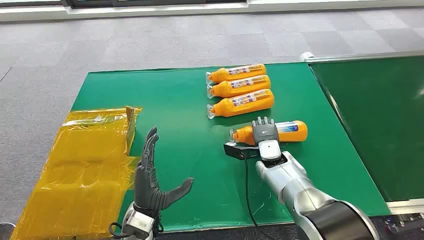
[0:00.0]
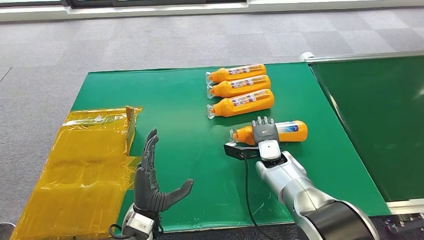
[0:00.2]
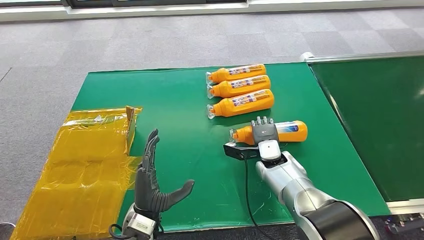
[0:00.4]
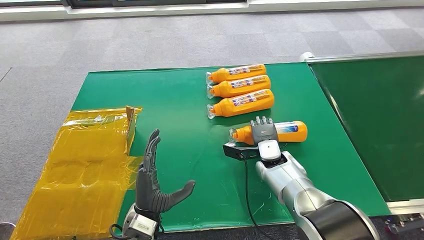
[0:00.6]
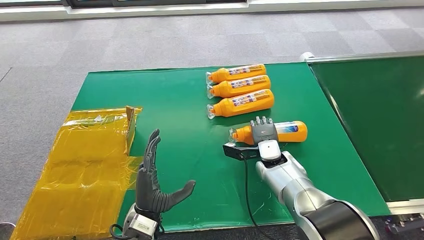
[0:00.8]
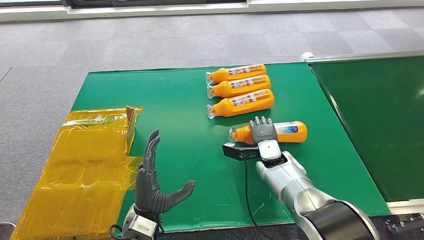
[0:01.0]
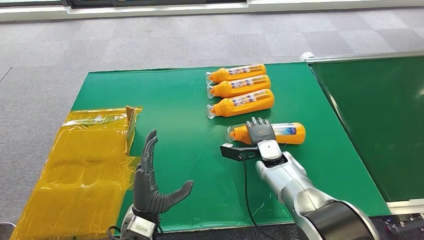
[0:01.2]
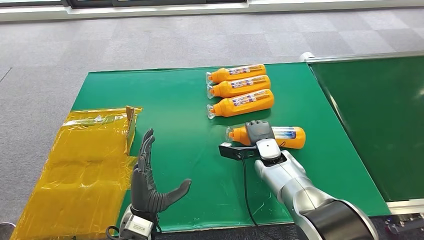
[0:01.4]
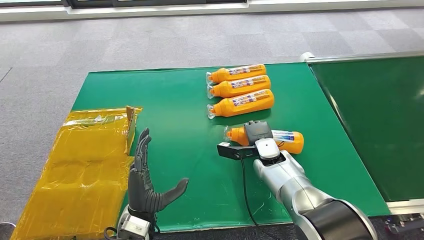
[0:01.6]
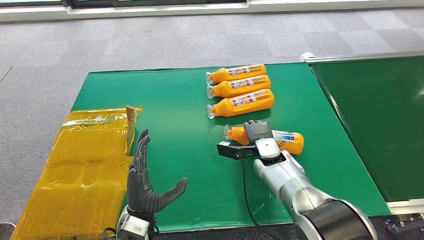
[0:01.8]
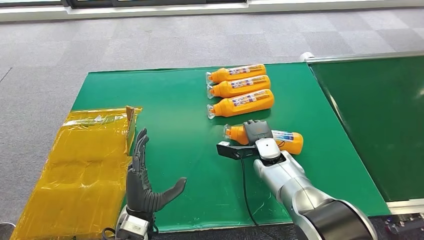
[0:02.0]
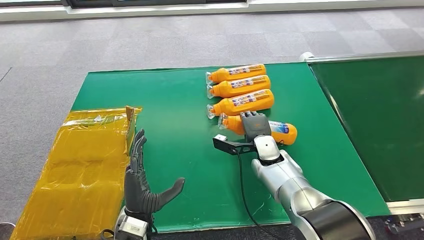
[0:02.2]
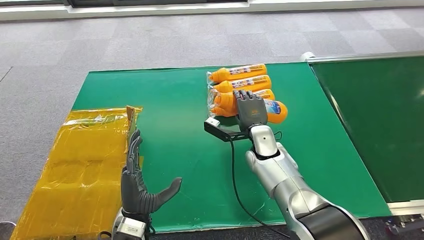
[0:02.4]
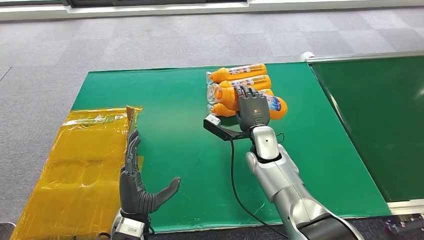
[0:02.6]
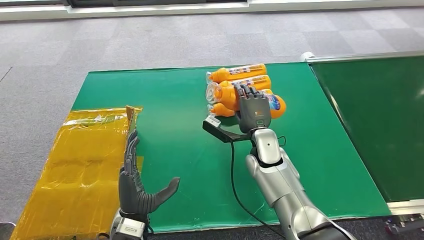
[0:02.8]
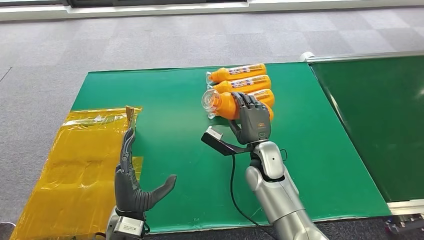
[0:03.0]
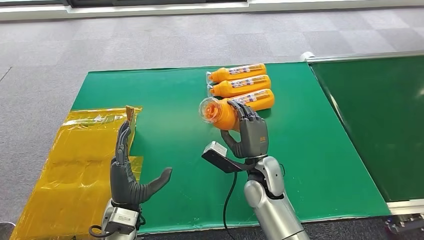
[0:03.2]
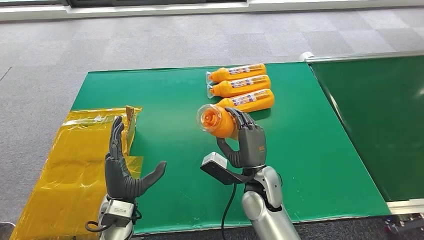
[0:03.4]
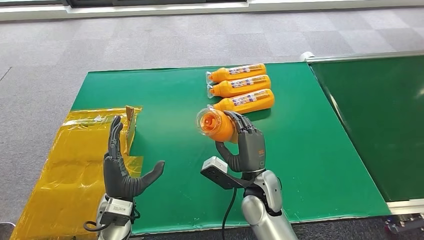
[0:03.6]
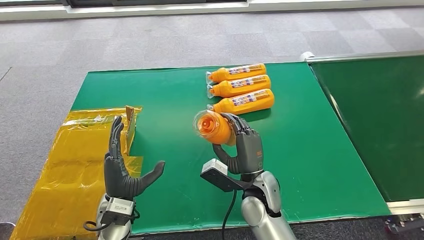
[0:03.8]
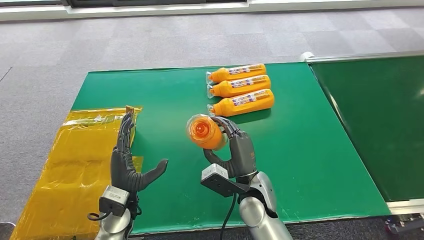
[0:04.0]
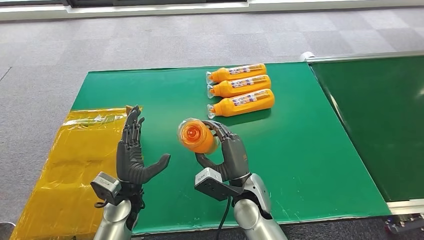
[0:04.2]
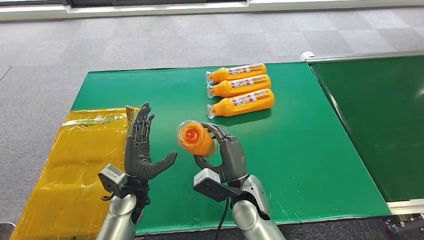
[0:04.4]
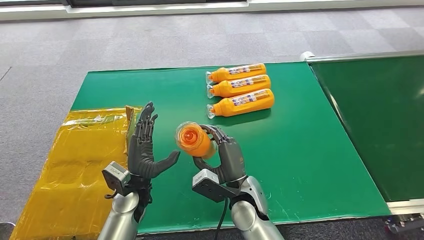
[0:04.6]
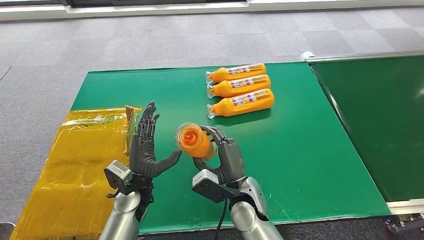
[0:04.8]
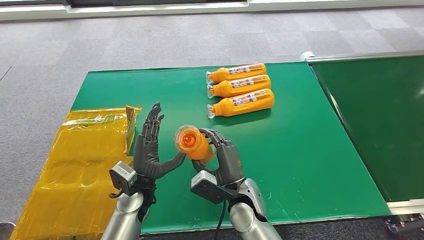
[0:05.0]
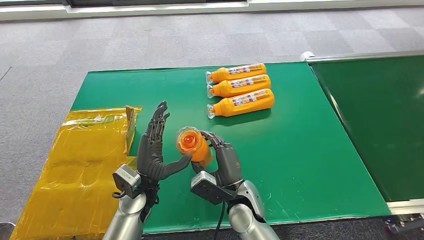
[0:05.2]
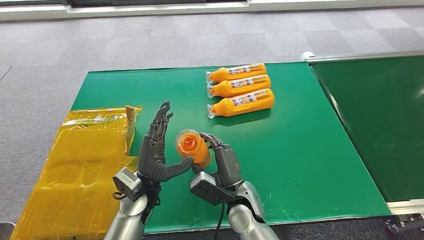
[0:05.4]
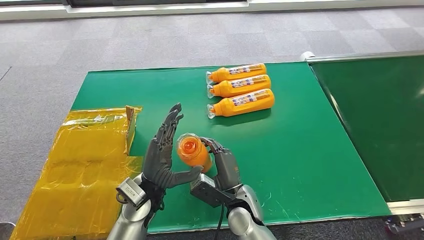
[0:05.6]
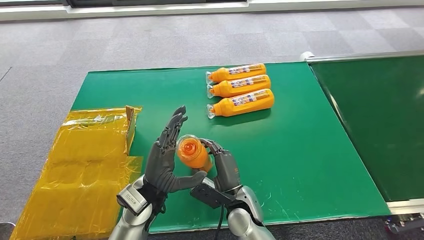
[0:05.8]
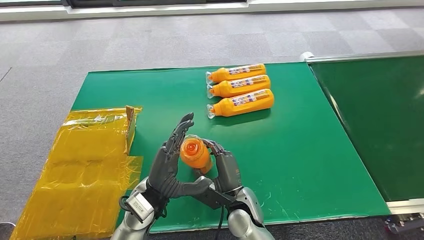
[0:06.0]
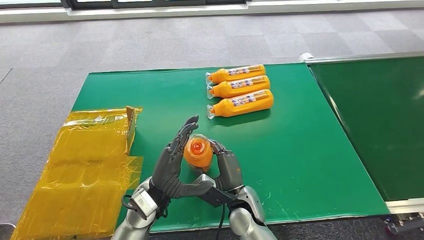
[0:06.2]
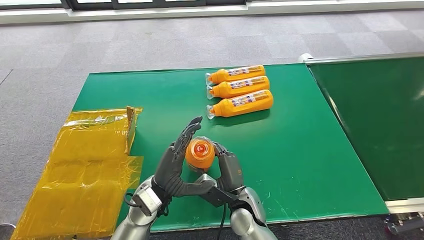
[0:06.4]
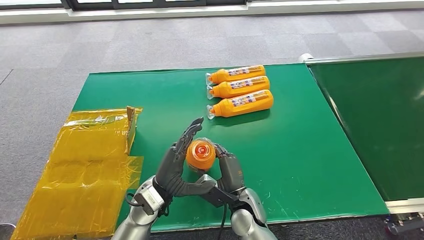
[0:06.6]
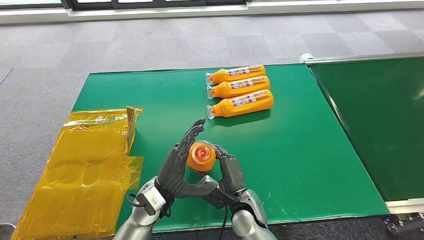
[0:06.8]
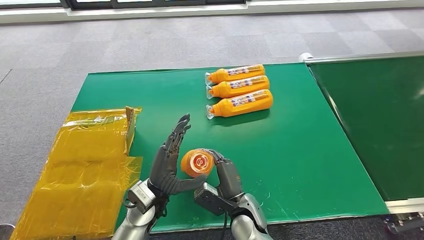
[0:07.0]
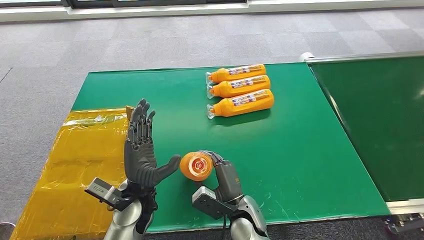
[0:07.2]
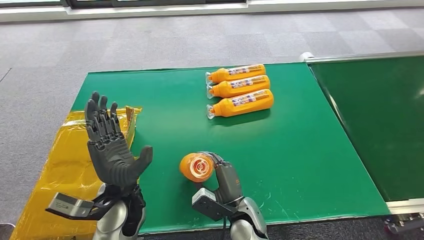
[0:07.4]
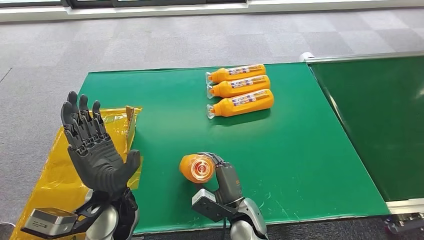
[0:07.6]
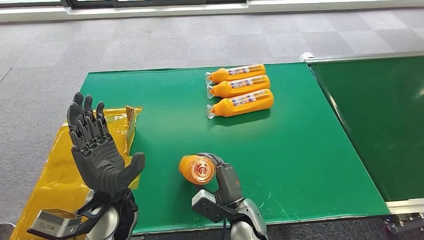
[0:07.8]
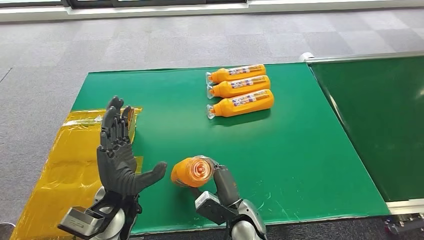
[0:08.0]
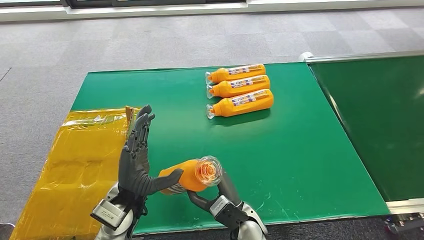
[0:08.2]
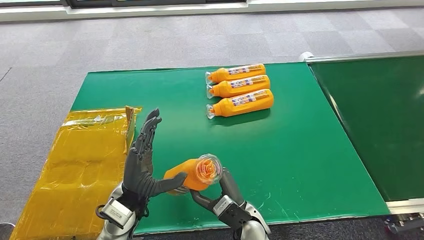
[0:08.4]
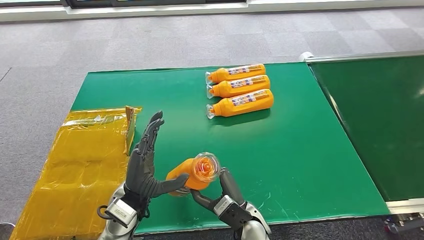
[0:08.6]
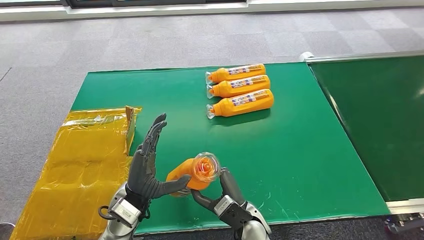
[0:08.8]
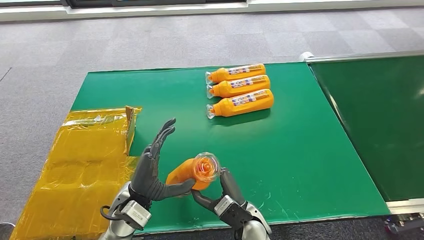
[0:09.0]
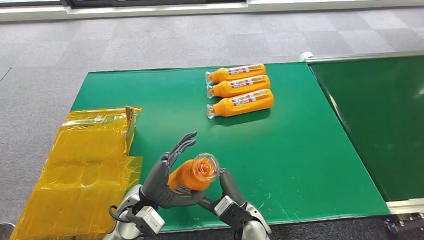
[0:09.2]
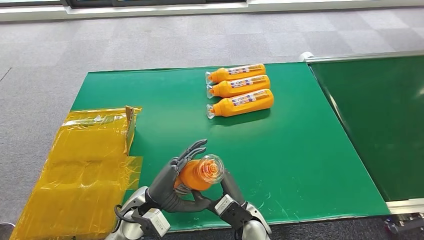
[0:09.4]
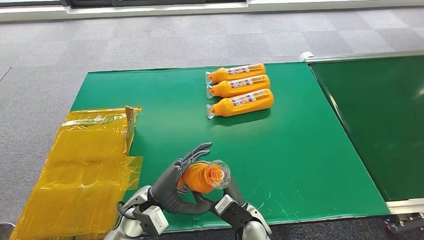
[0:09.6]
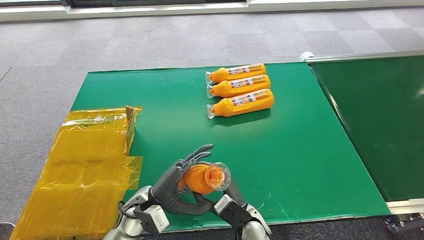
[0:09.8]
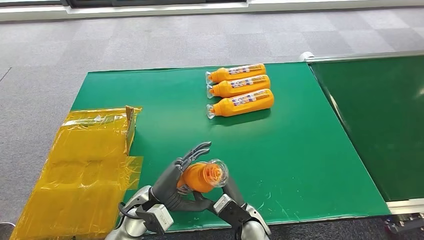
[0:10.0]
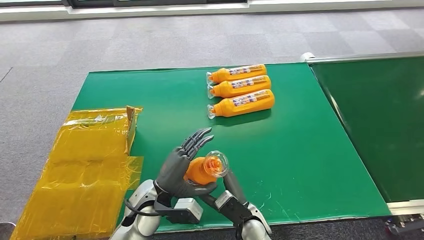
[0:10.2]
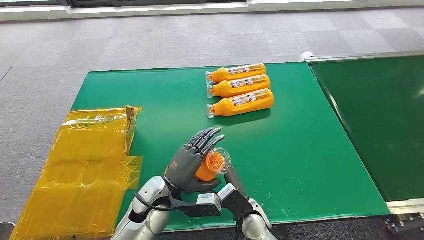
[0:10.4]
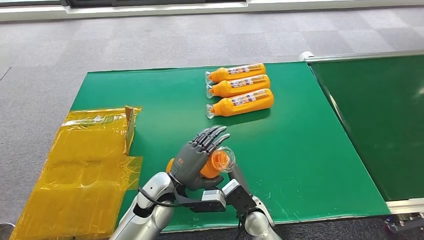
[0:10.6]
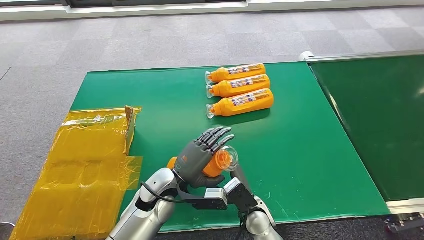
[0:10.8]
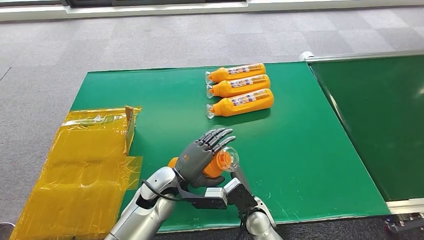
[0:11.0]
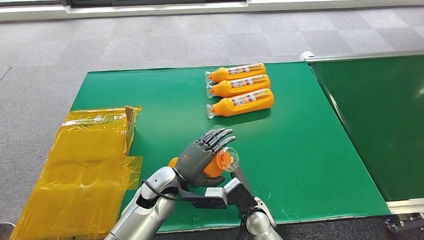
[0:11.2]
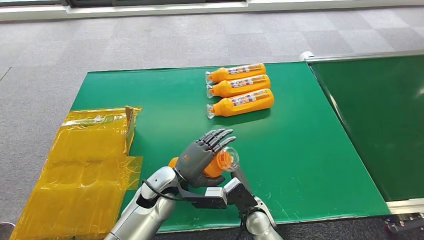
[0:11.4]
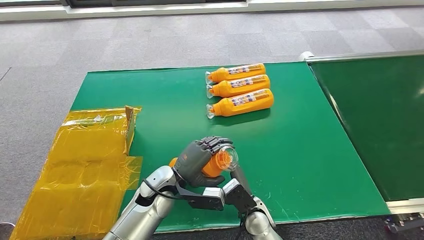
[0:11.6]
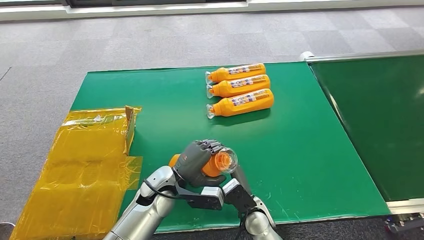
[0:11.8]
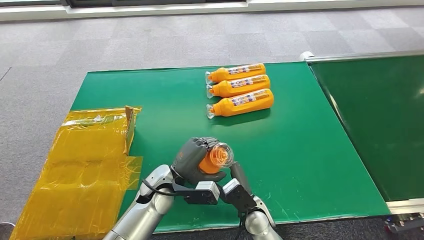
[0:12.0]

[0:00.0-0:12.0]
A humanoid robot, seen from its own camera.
Step, 0:00.0 to 0:03.0: Pick up the bottle from the table.
0:01.6 to 0:03.0: The right hand heads upward, covering roughly 5 cm.
0:03.0 to 0:04.4: The right hand travels backward and to the left by some 10 cm. Meanwhile the left hand heads forward, covering about 5 cm.
0:04.4 to 0:06.0: The right hand ends up approximately 5 cm from where it was; the left hand goes some 5 cm to the right.
0:06.0 to 0:07.6: The left hand ends up some 5 cm from where it was.
0:07.6 to 0:09.0: The left hand travels downward by approximately 5 cm.
0:10.4 to 0:12.0: The hands move only a little.

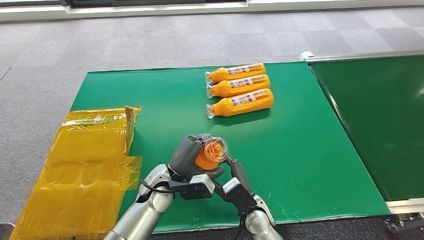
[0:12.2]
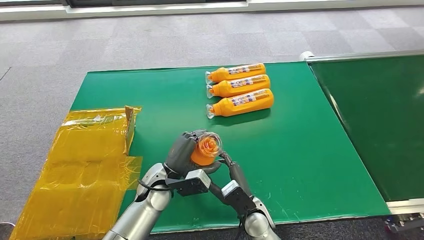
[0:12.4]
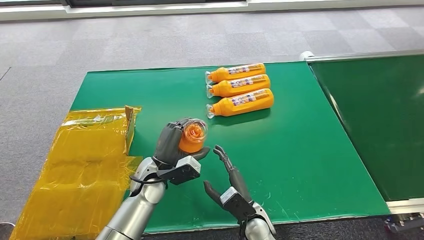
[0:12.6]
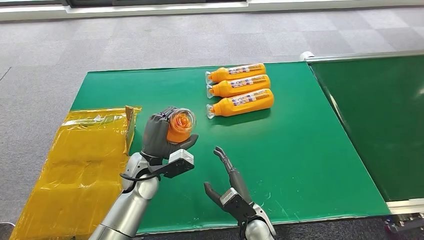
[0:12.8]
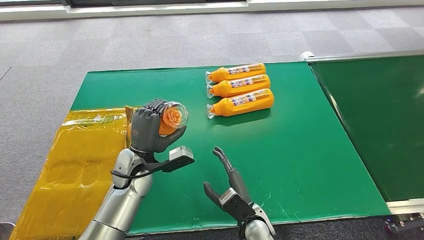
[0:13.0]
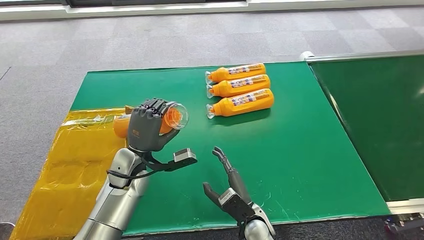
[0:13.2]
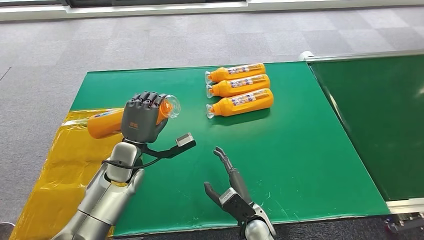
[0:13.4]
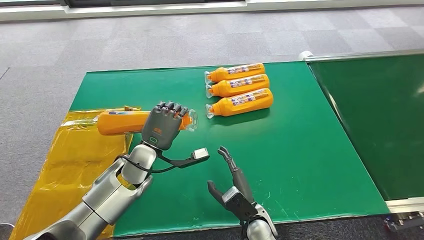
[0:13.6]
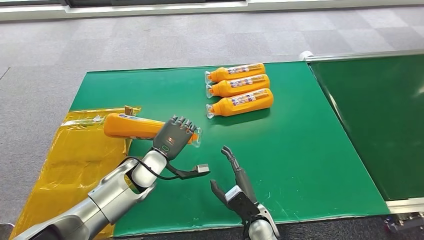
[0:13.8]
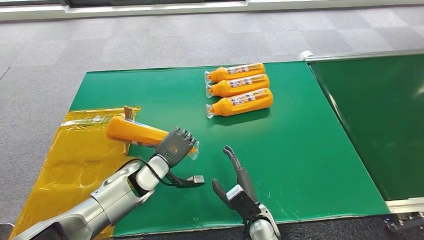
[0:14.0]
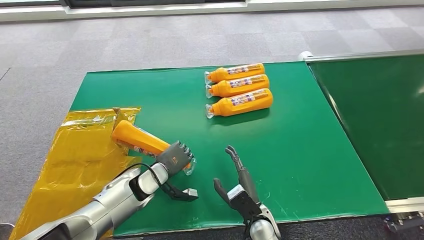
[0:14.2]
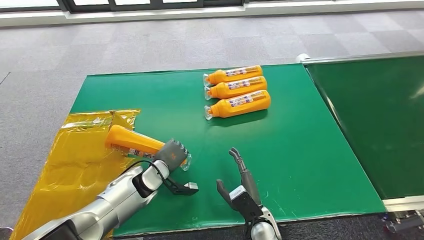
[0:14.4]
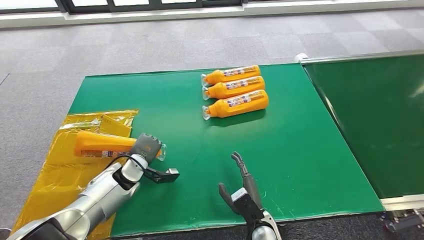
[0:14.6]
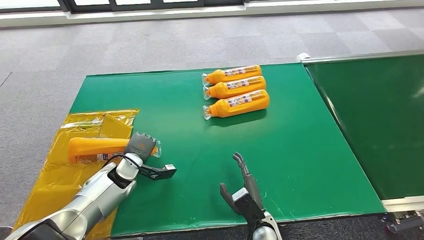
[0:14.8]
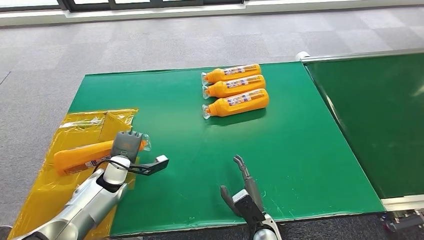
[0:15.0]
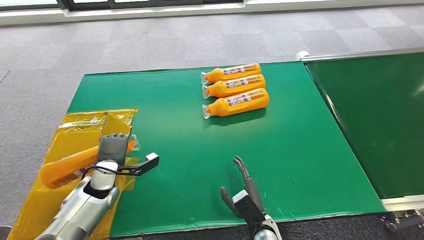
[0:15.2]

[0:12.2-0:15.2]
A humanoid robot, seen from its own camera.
Step, 0:12.2 to 0:15.2: Turn the bottle to the front side.
0:12.2 to 0:13.8: The left hand goes some 5 cm to the left and forward.
0:13.8 to 0:15.2: The left hand heads to the left and downward, covering approximately 15 cm.
